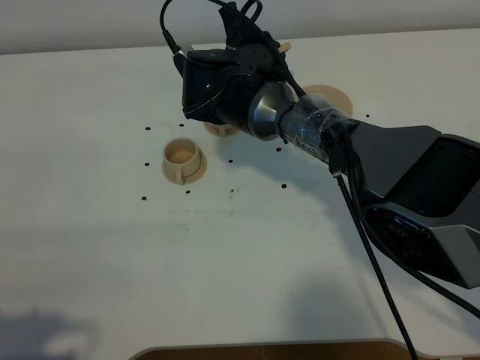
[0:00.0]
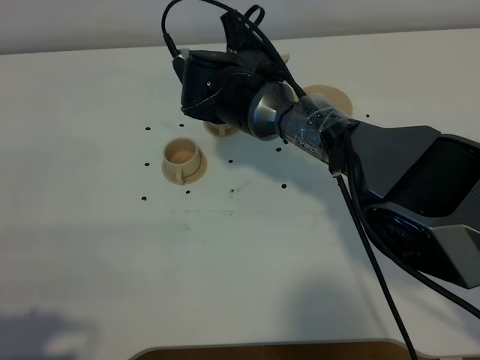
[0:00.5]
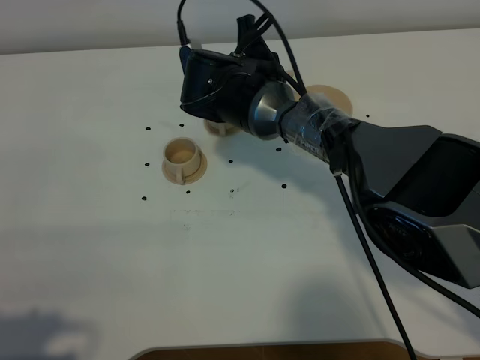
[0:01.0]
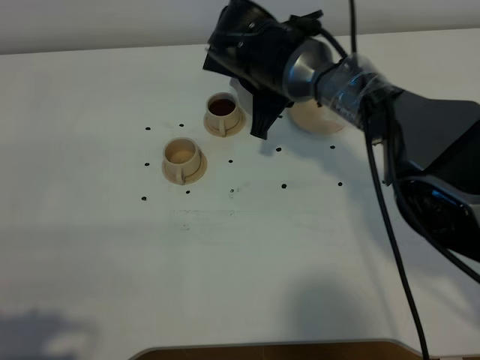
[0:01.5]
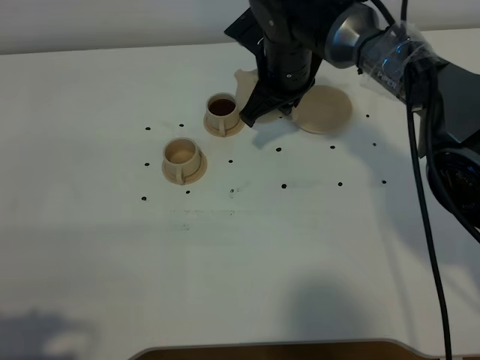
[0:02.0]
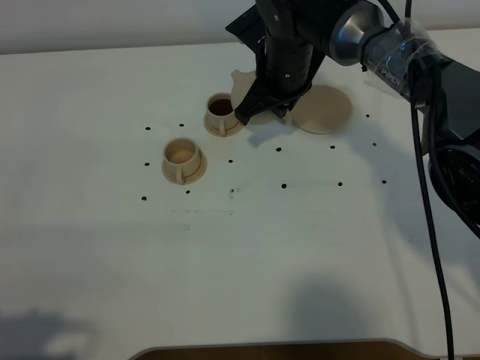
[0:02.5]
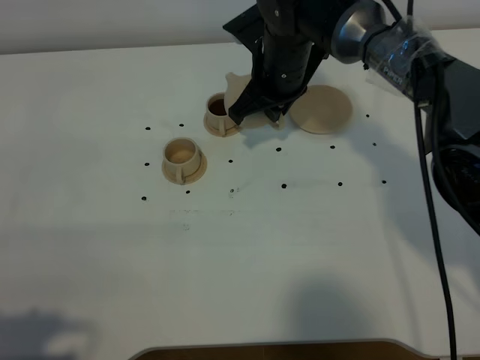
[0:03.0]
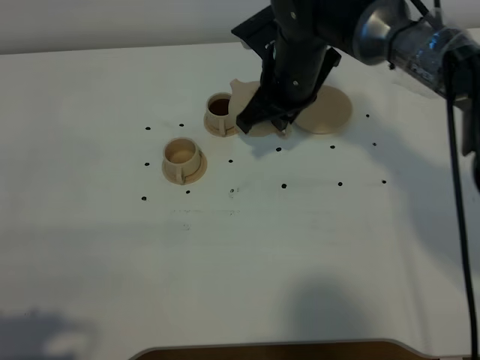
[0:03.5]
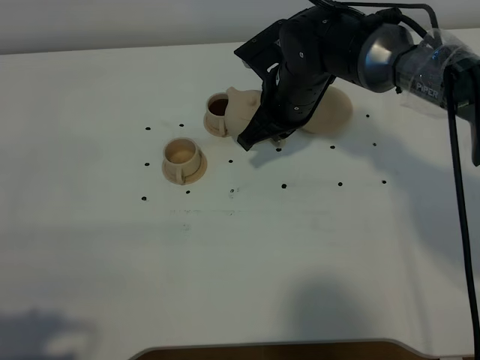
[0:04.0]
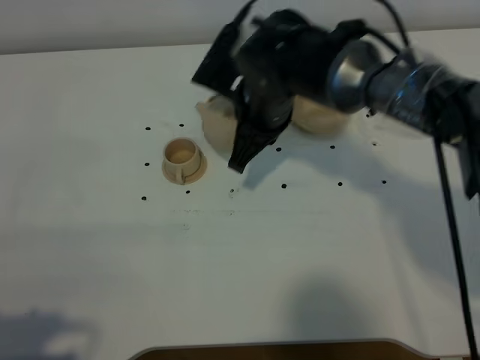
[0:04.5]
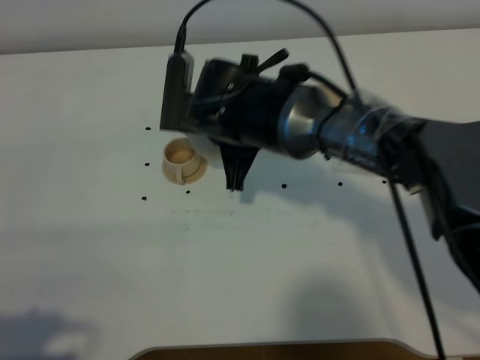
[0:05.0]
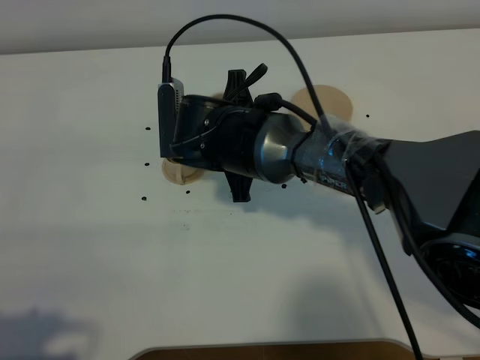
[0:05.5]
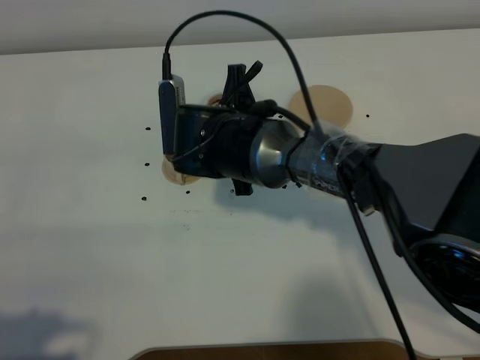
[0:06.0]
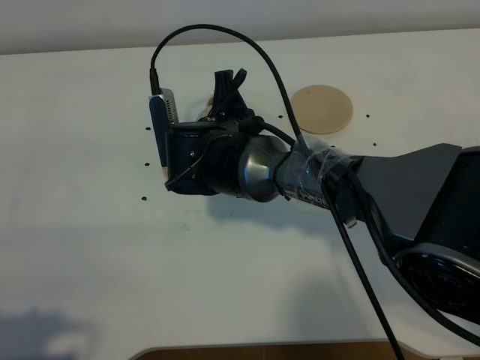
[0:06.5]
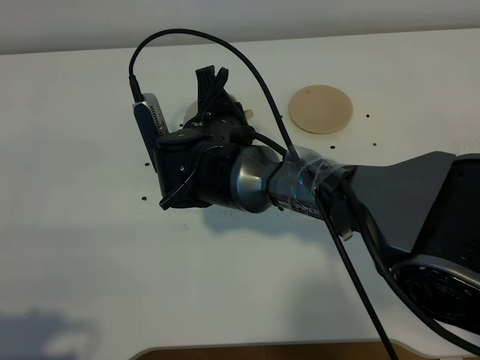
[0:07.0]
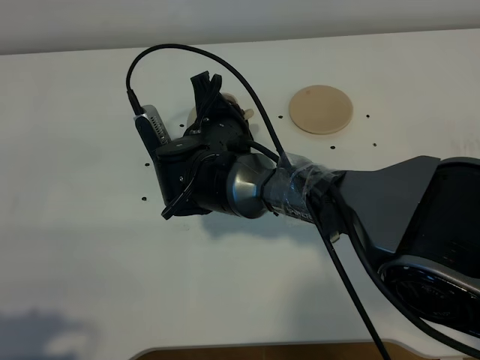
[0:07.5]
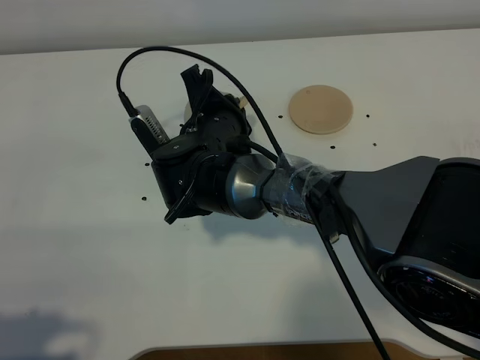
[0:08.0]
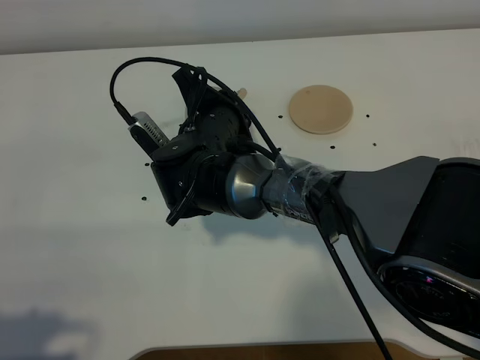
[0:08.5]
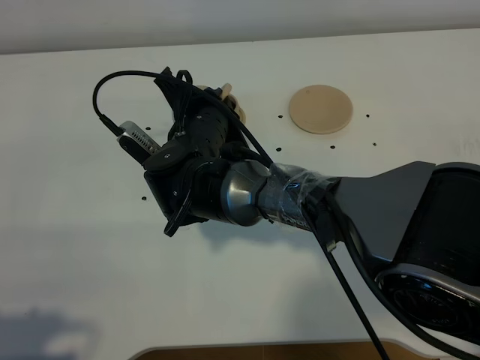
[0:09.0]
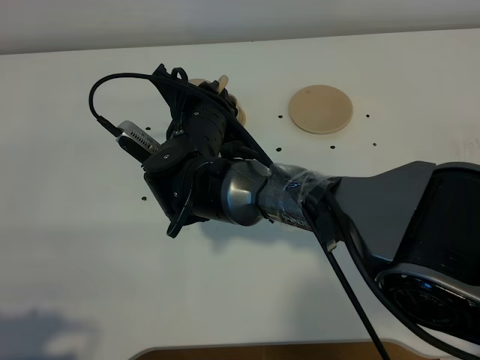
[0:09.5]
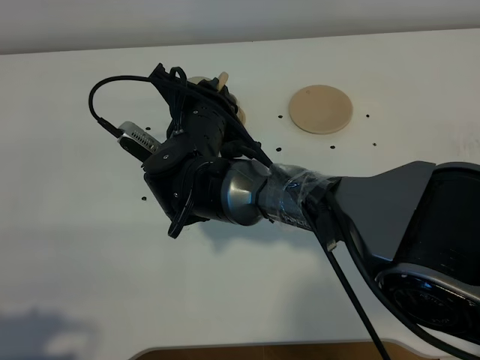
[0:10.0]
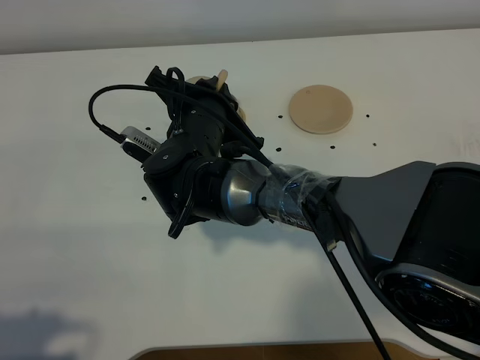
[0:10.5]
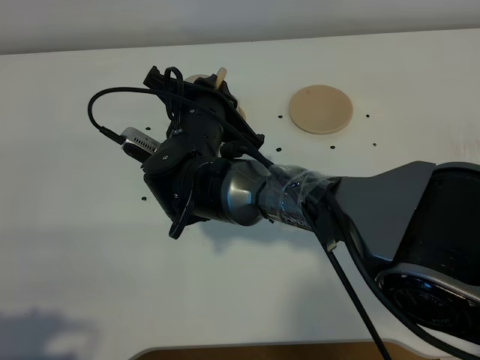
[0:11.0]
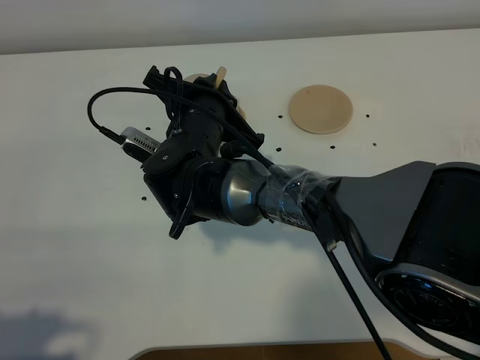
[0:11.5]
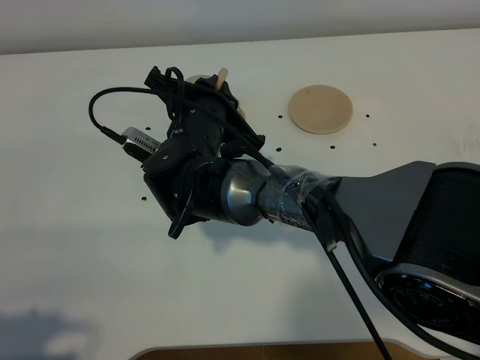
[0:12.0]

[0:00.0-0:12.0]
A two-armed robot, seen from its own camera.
Task of the whole recording: grasp the brown teapot and pour the tea into the two brown teacups one by one, put the brown teapot back in its original place.
0:00.0 to 0:02.0: The right gripper is displaced to the right by approximately 5 cm.
0:02.0 to 0:04.0: The grippers make only small movements.
0:04.0 to 0:06.0: The right gripper goes some 10 cm to the left and backward.
0:10.0 to 0:12.0: The grippers make only small movements.

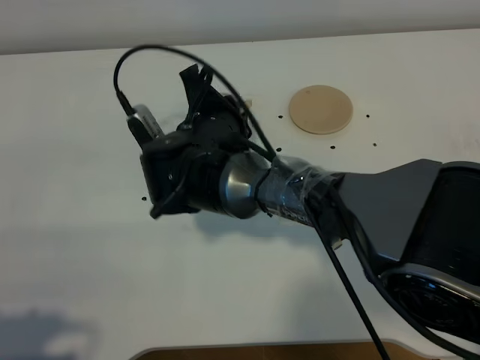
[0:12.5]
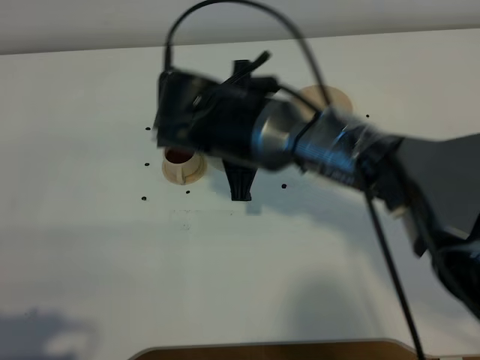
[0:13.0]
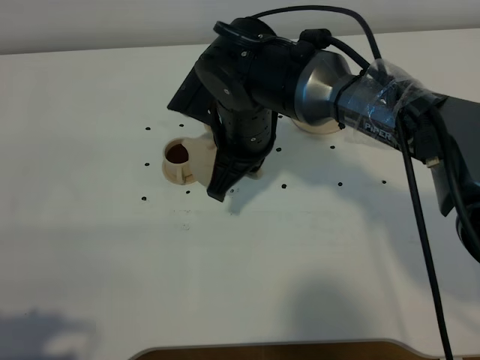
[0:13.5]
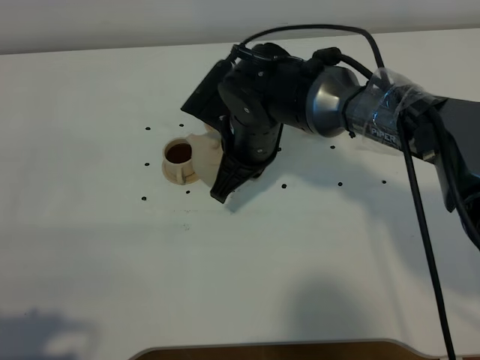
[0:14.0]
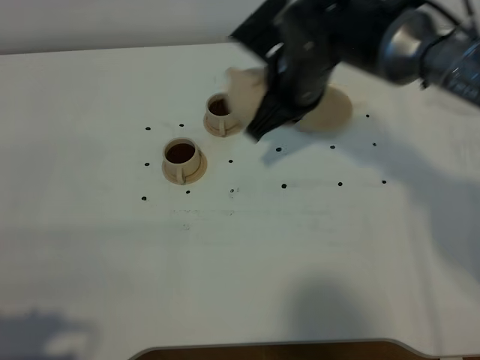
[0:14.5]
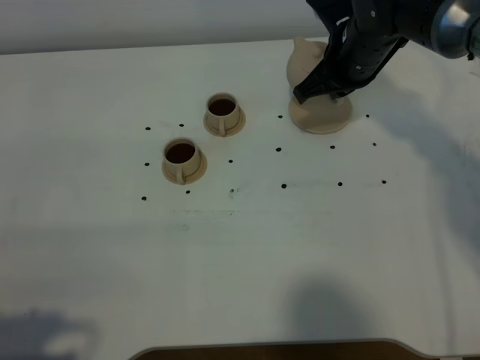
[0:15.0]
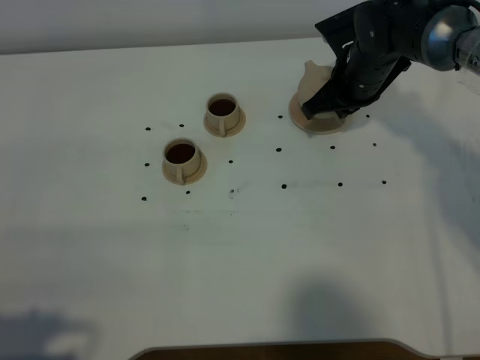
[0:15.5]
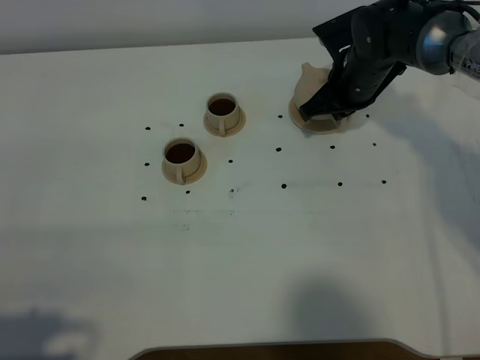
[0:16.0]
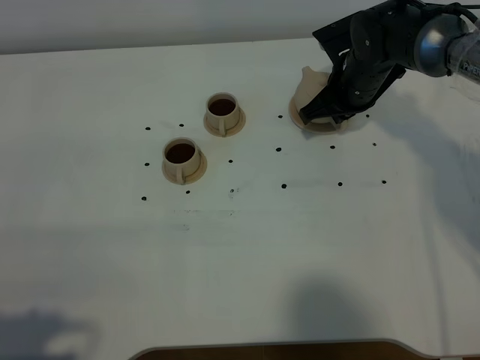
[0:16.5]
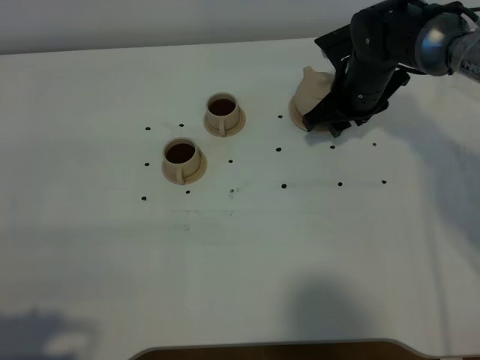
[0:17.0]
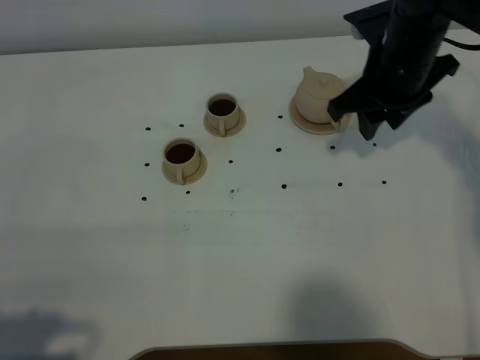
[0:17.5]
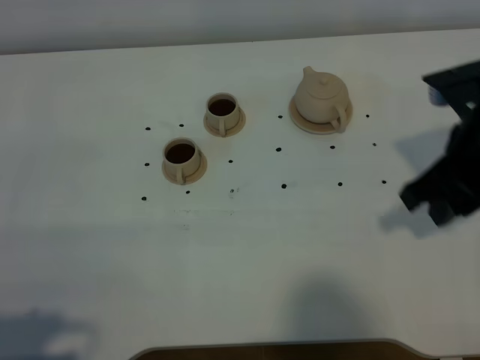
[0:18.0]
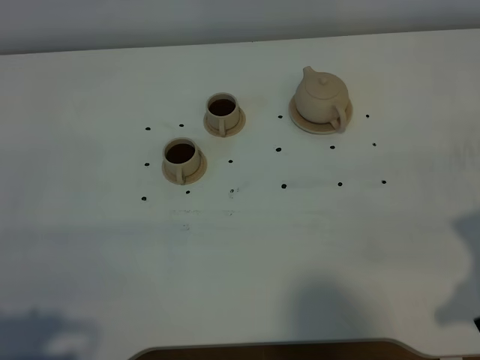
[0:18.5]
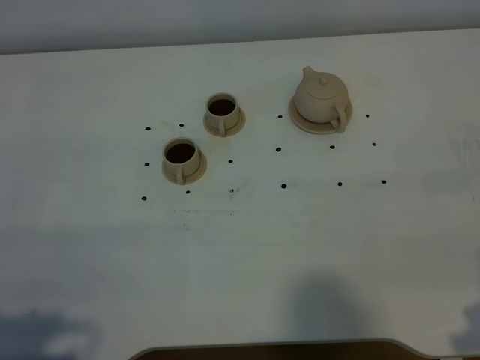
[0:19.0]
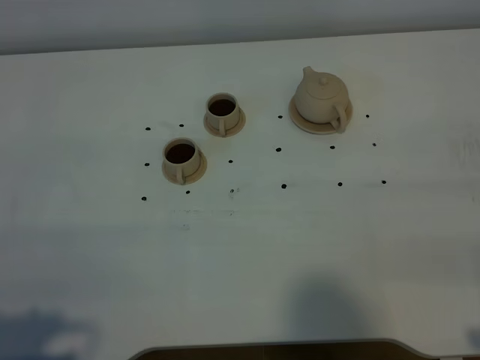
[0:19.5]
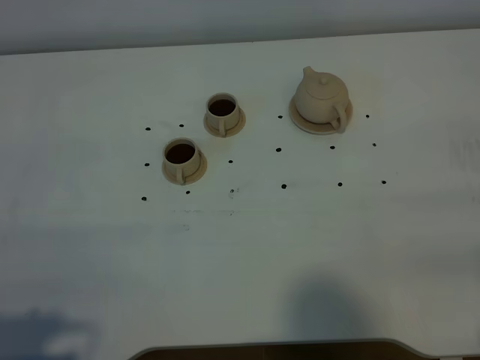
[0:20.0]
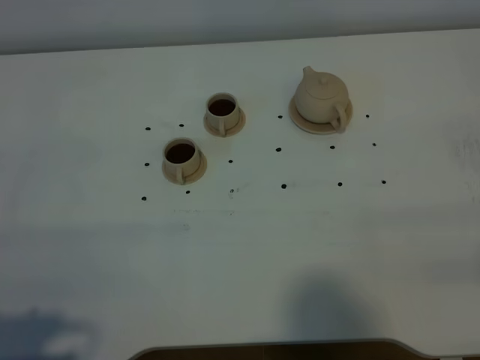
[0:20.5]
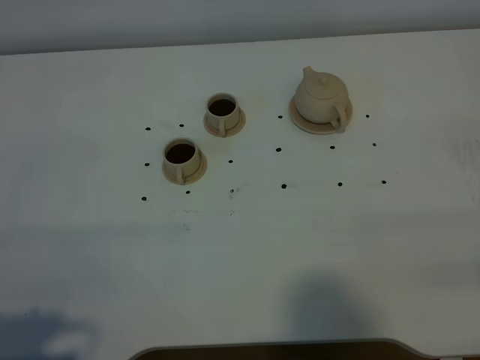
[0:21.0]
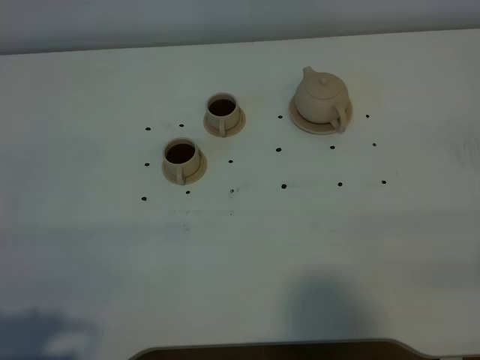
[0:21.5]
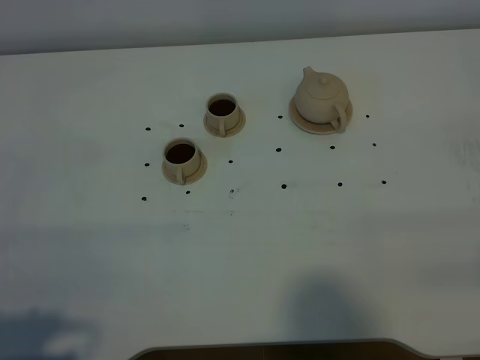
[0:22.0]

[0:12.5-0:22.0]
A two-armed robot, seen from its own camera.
Task of the whole recording: grasp the brown teapot and pour the tea into the two brown teacups one by one, put the brown teapot back in its original place.
0:12.5 to 0:14.5: The right gripper shifts approximately 15 cm to the right and upward.
0:14.5 to 0:16.5: The right gripper goes some 15 cm to the right, downward and forward.
0:16.5 to 0:18.0: The right gripper heads backward and upward, covering roughly 25 cm, and opens.
0:18.0 to 0:20.0: The right gripper shifts some 20 cm backward.
